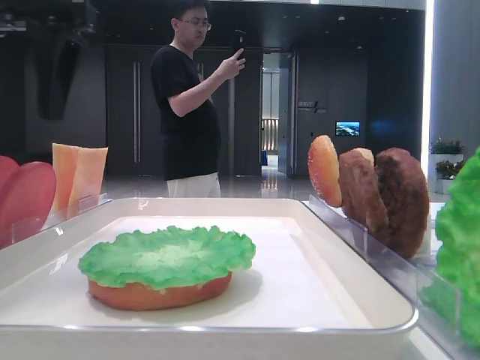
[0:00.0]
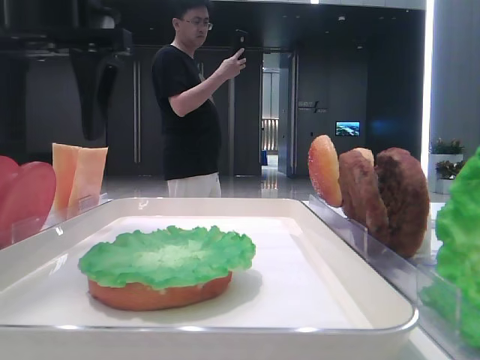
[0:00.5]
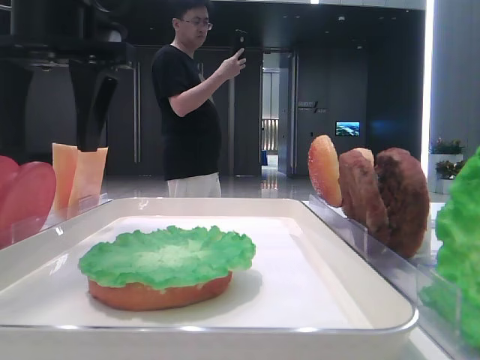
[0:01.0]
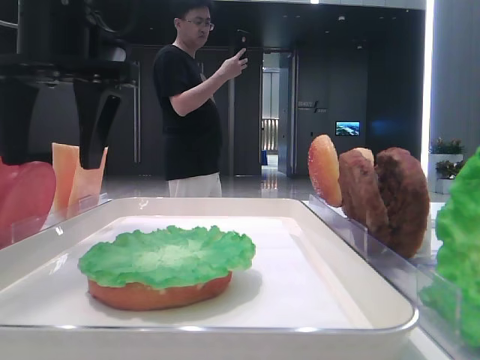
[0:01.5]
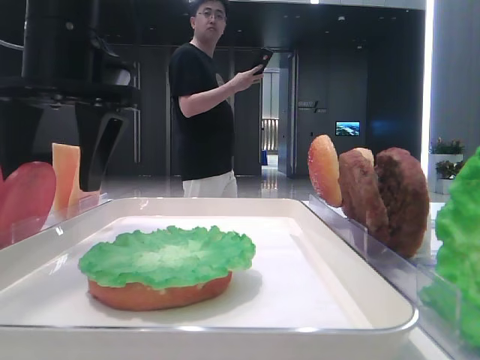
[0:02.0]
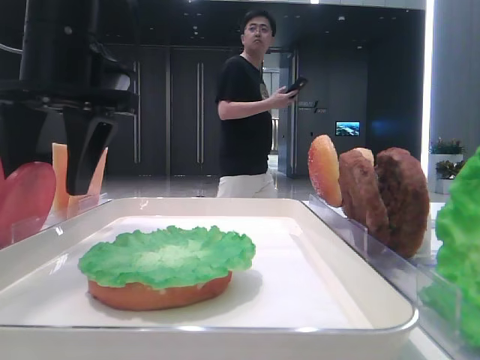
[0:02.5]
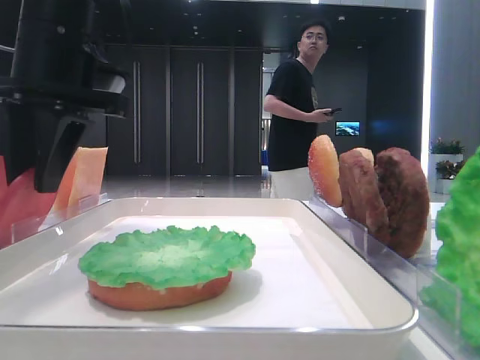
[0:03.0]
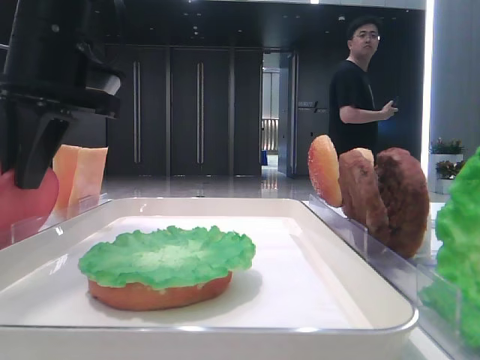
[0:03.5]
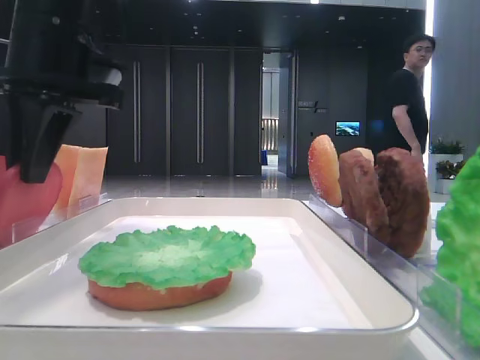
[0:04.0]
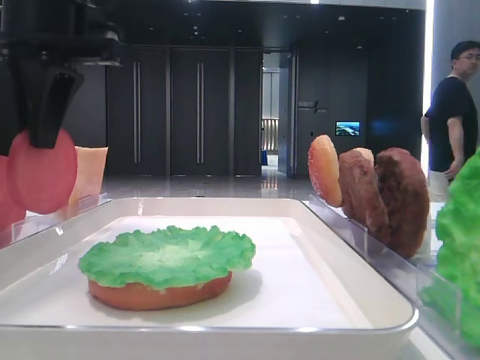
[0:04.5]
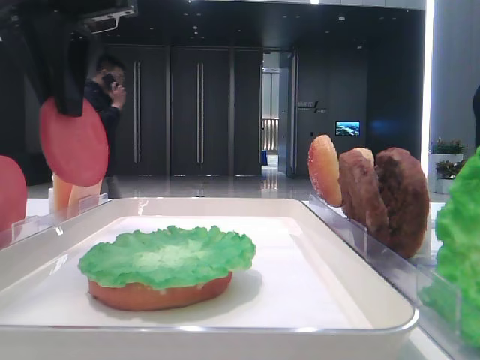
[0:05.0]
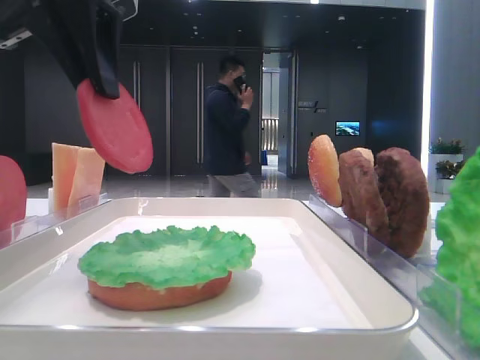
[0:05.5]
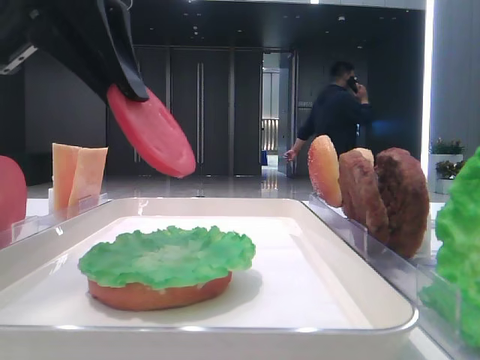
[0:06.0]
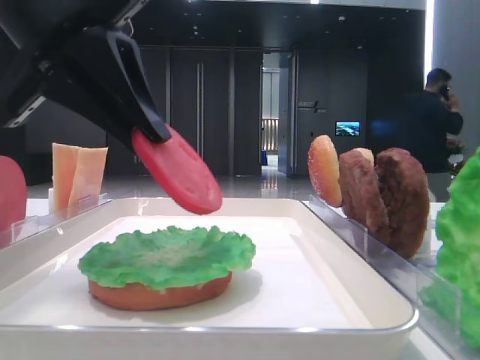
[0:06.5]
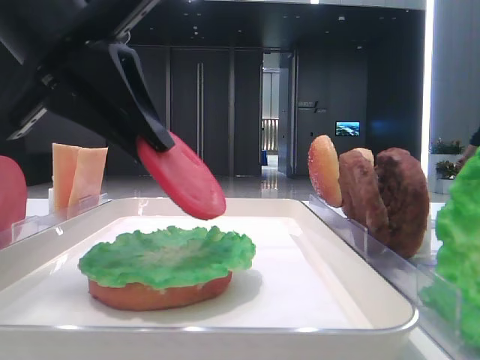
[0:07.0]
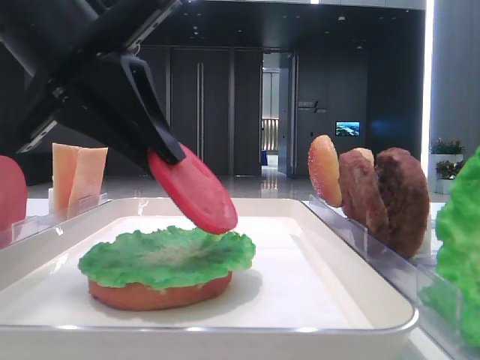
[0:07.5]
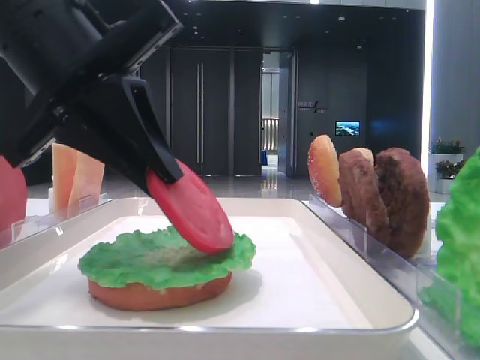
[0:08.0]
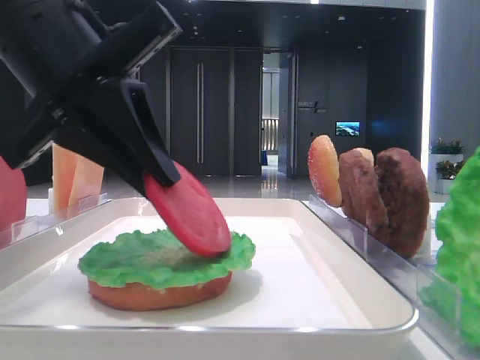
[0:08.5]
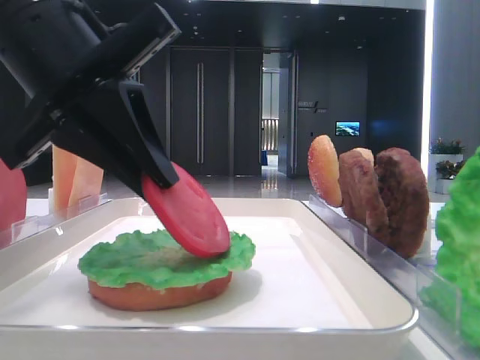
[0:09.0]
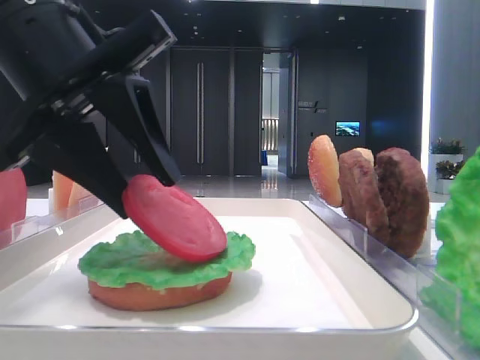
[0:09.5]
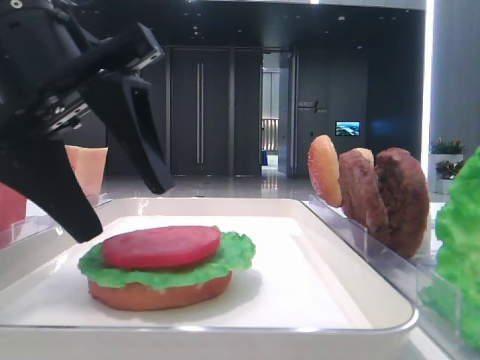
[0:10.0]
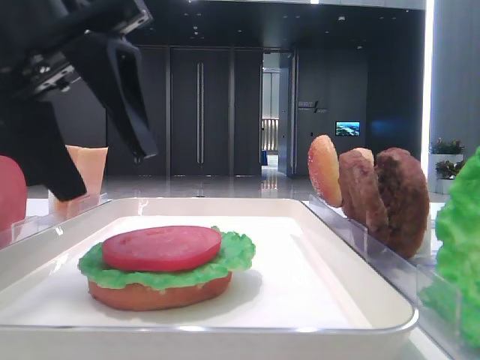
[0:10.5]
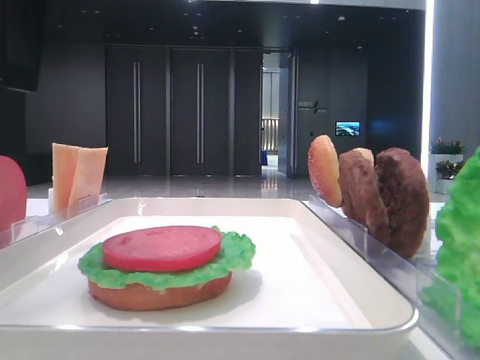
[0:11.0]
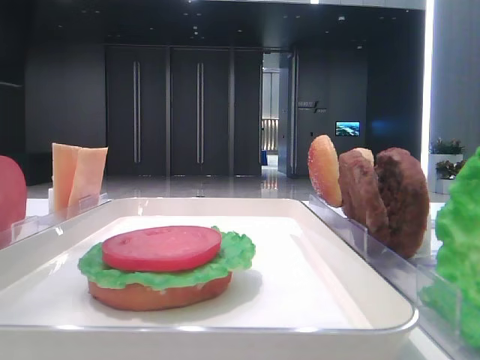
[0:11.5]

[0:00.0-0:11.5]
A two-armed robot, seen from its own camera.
Step, 0:00.0 to 0:03.5: Pick up the tomato slice with the left hand.
Step, 0:04.0 to 0:10.0: Place the tomato slice on the lettuce leaf with the left hand.
0:00.0 to 0:02.0: The left gripper goes approximately 5 cm downward.
0:02.0 to 0:04.0: The left gripper closes.
0:04.0 to 0:06.0: The left gripper travels backward by about 5 cm.
0:06.0 to 0:07.5: The left gripper goes roughly 5 cm downward.
0:07.5 to 0:09.5: Neither gripper changes place.
0:09.5 to 0:11.5: The left gripper goes roughly 10 cm upward, and opens its fingers.

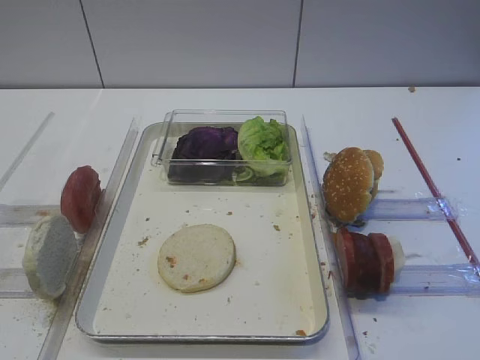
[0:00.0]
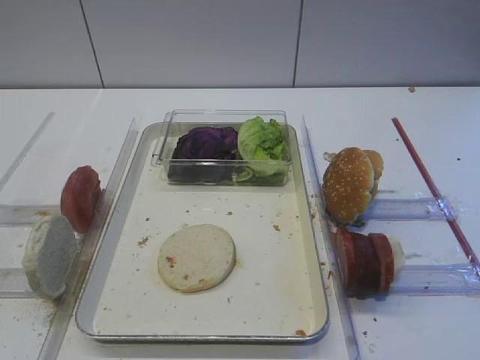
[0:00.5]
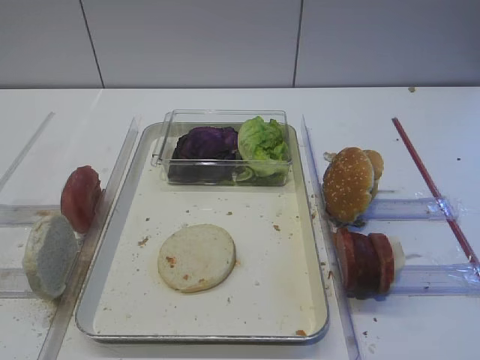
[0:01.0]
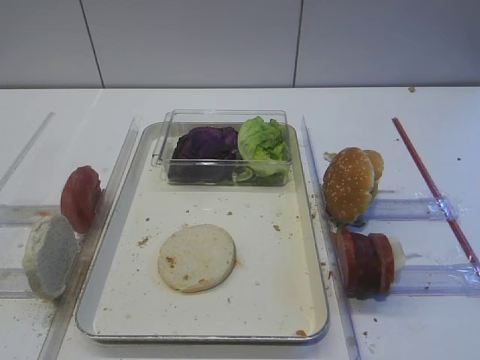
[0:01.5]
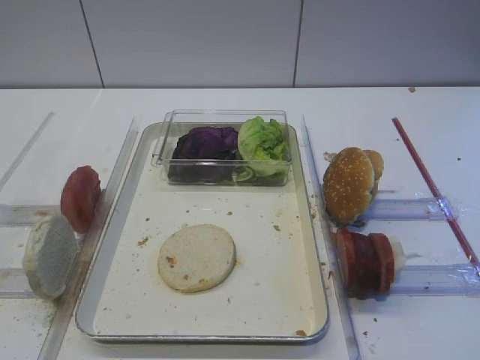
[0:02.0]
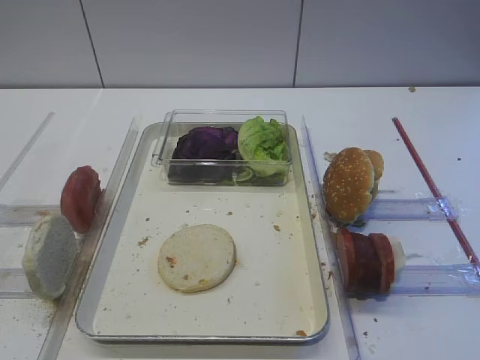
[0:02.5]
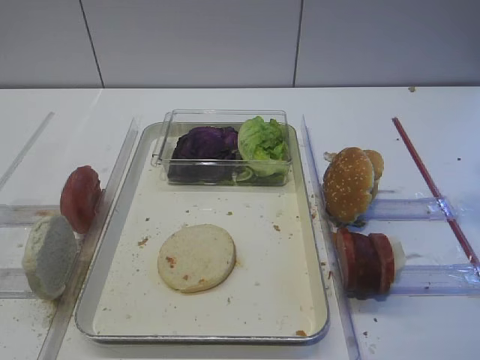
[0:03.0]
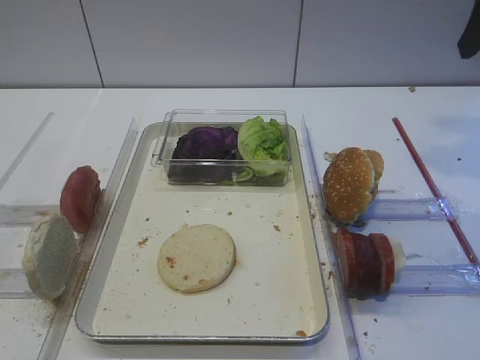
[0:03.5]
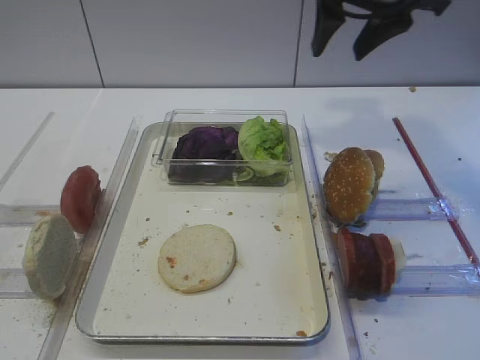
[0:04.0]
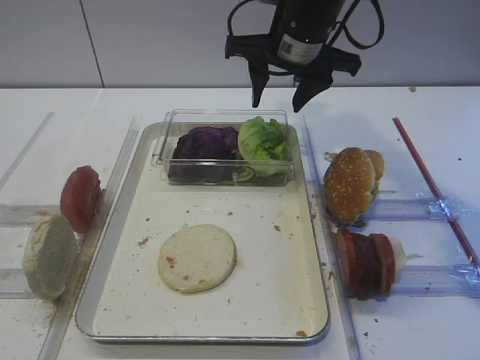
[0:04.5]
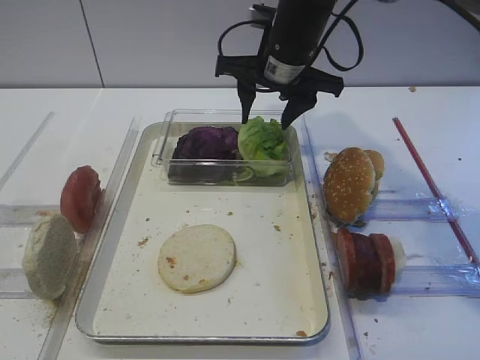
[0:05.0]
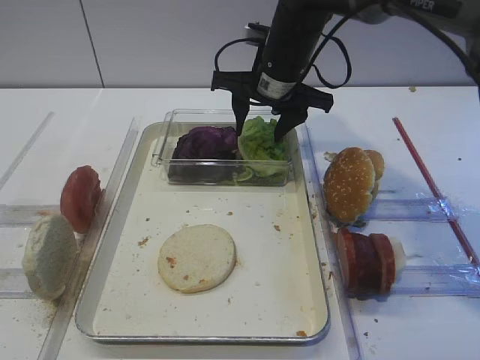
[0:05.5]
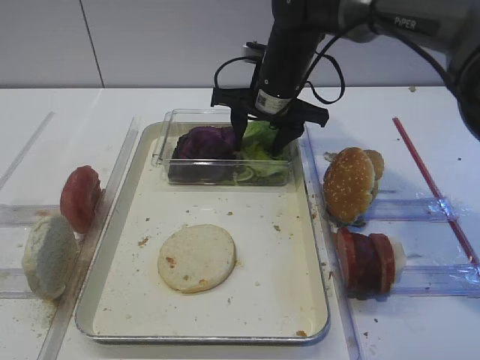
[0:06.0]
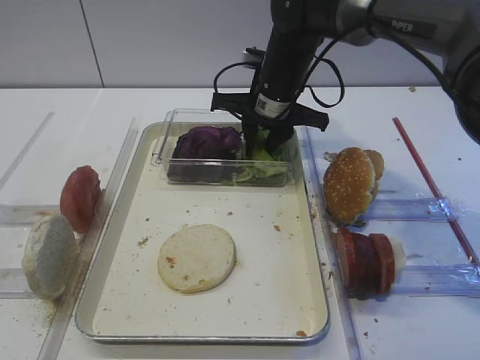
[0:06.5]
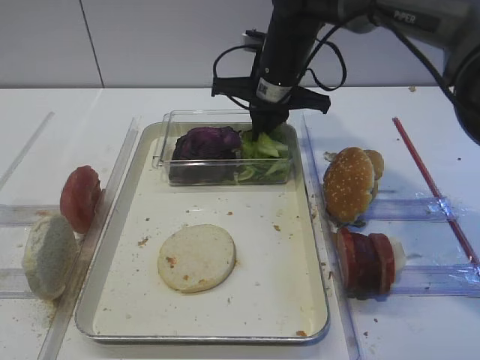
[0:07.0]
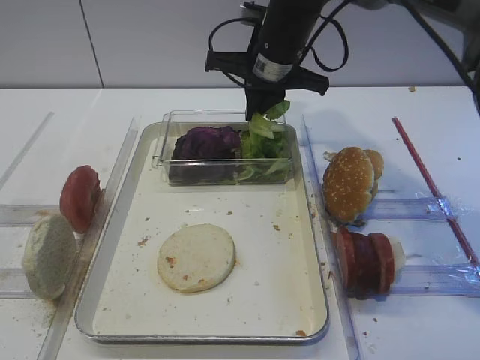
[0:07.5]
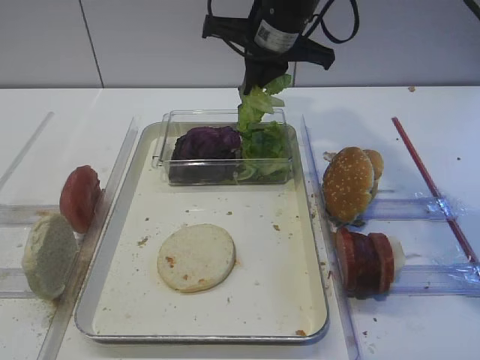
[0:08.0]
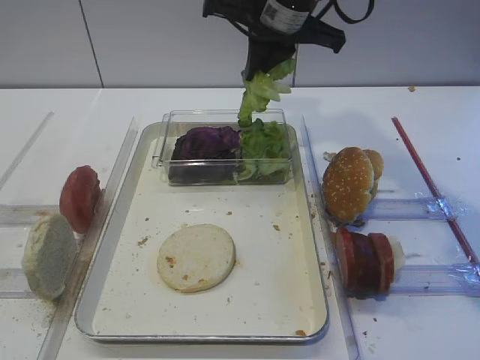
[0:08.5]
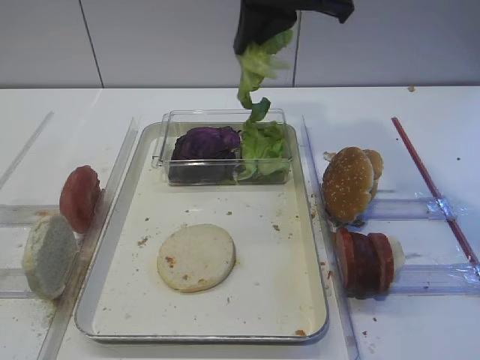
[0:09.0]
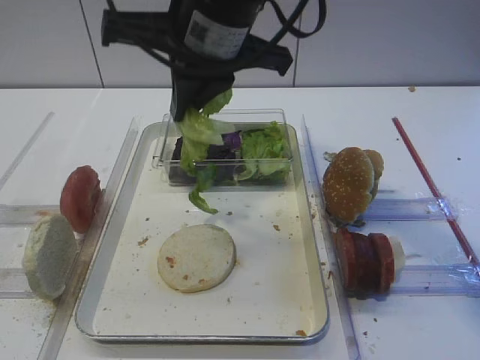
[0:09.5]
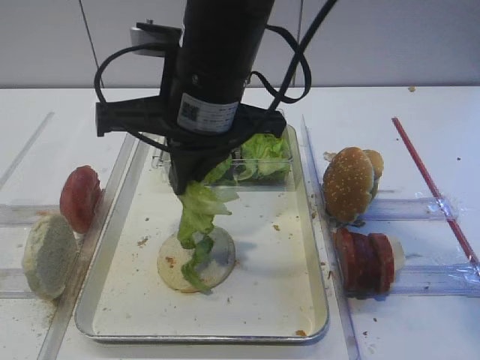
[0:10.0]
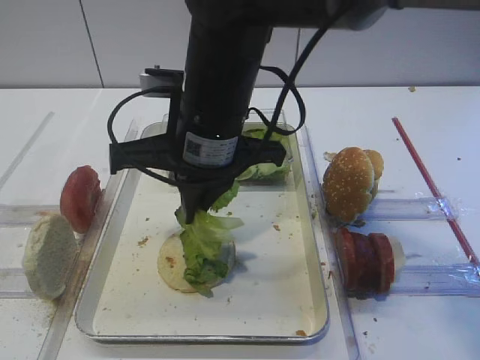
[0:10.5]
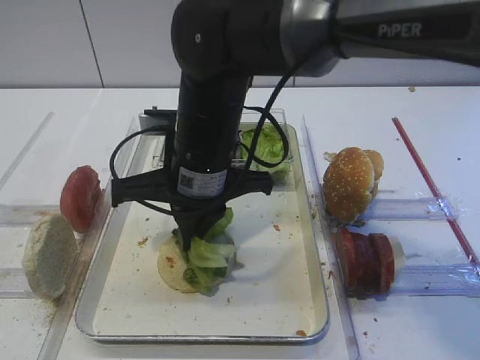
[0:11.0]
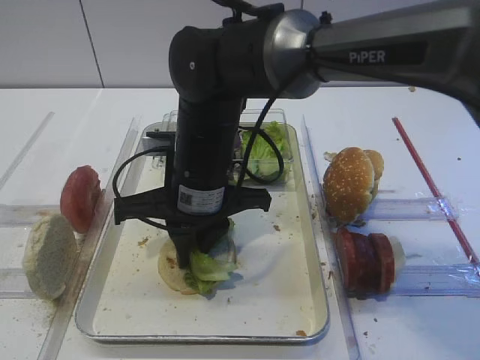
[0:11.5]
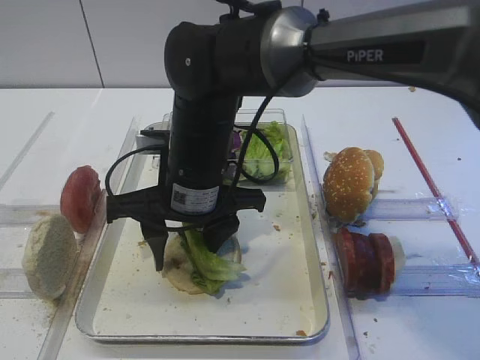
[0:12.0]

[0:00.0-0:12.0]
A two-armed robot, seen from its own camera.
Step, 0:00.0 to 0:08.0: Pick up the lettuce leaf with the right gripper.
0:02.0 to 0:04.0: The right gripper travels forward by about 35 cm.
0:04.0 to 0:06.0: The right gripper shifts some 20 cm downward, to the left and forward.
0:06.0 to 0:08.0: The right gripper moves upward, roughly 10 cm, and closes up.
0:08.0 to 0:10.0: The right gripper travels backward and to the left by about 15 cm.
0:10.0 to 0:12.0: The right gripper is displaced downward by approximately 10 cm, and opens up.

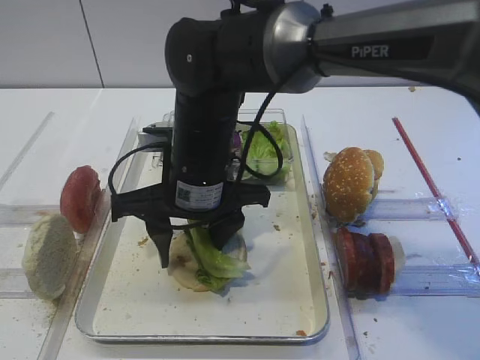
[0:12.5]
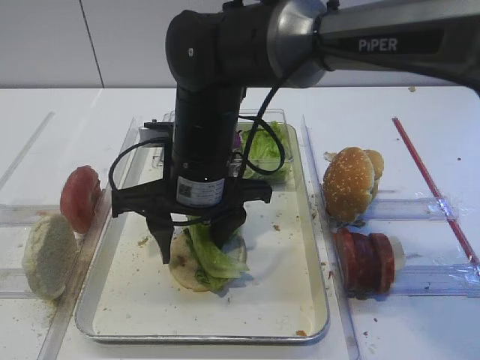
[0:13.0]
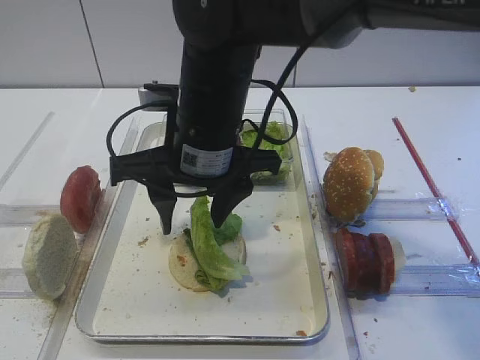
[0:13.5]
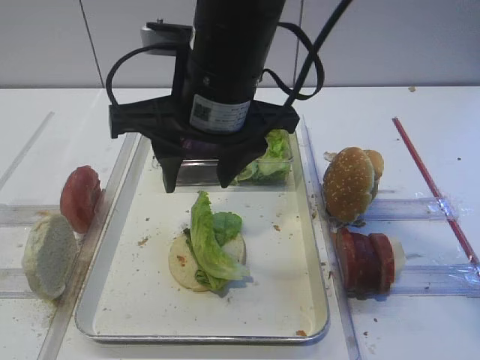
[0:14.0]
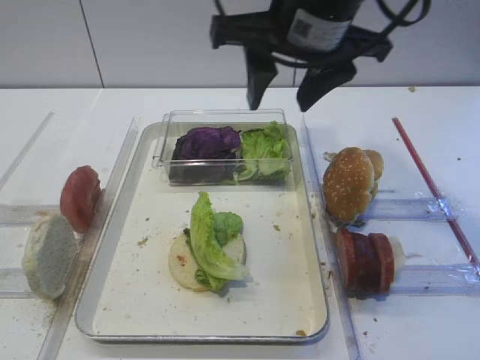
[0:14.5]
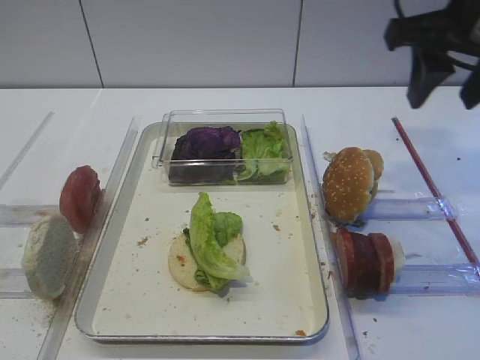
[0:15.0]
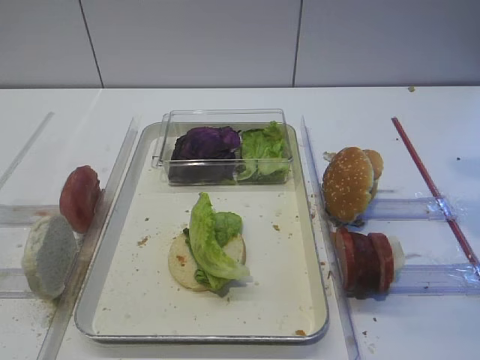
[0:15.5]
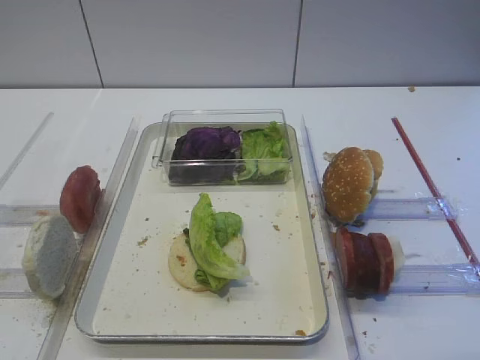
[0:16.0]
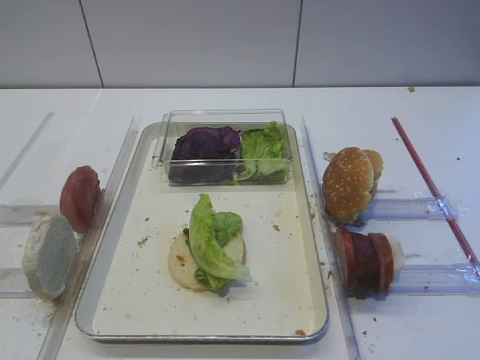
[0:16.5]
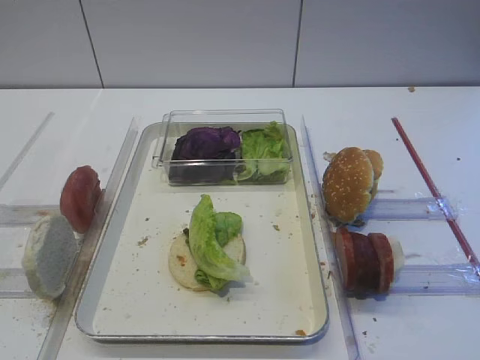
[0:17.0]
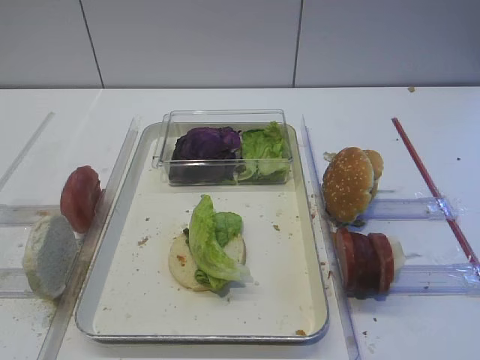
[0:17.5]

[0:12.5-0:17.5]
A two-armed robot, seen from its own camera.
0:12.5 to 0:15.0: The right gripper goes about 30 cm to the right and upward.
0:15.0 to 0:17.5: The right gripper is displaced backward by about 30 cm.
